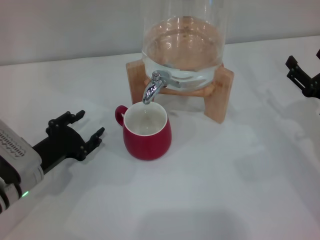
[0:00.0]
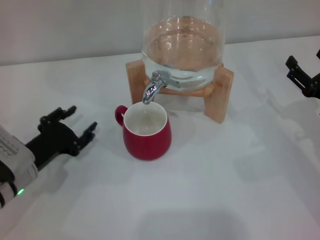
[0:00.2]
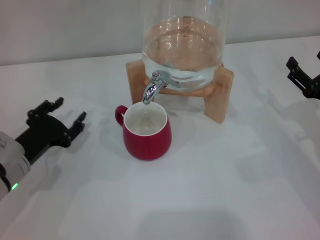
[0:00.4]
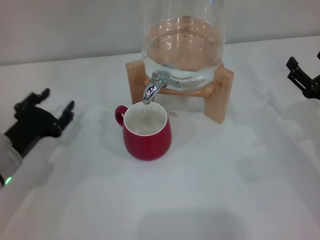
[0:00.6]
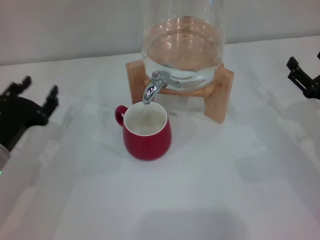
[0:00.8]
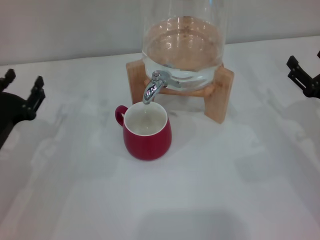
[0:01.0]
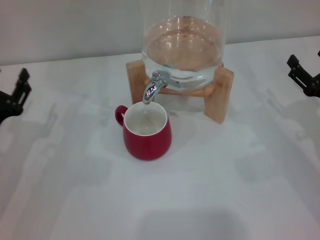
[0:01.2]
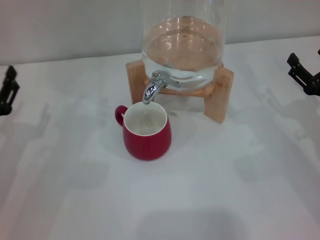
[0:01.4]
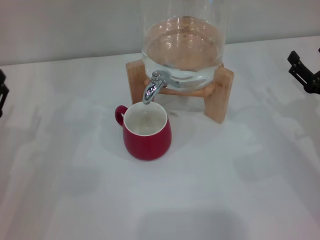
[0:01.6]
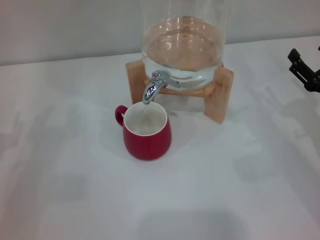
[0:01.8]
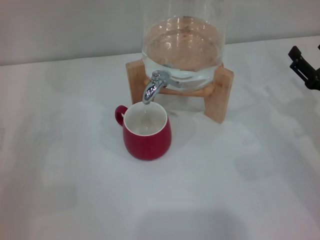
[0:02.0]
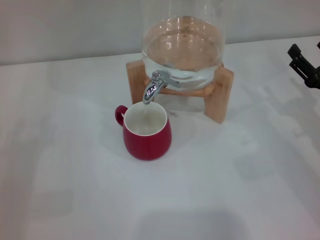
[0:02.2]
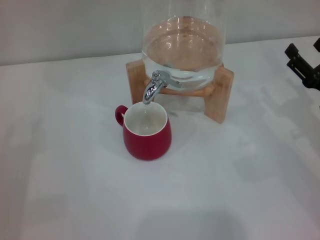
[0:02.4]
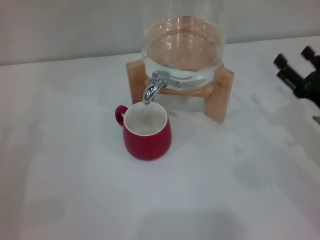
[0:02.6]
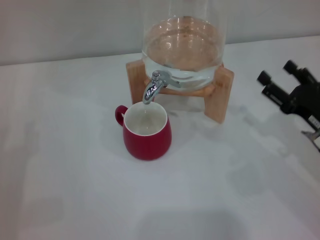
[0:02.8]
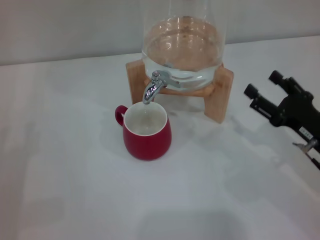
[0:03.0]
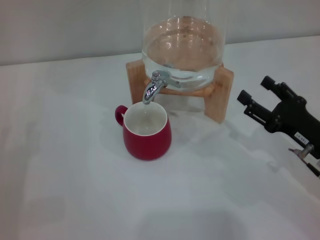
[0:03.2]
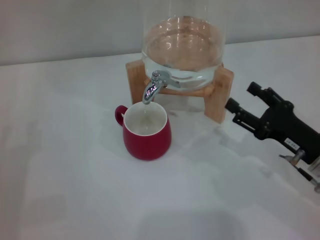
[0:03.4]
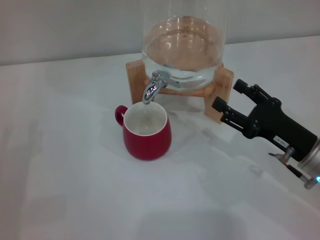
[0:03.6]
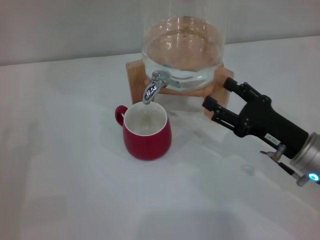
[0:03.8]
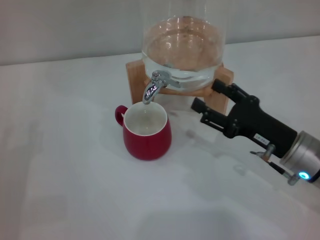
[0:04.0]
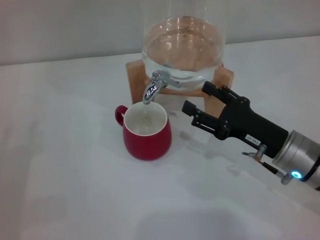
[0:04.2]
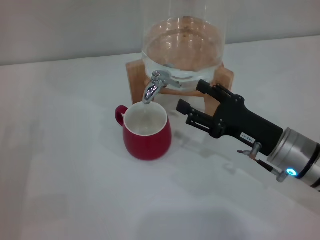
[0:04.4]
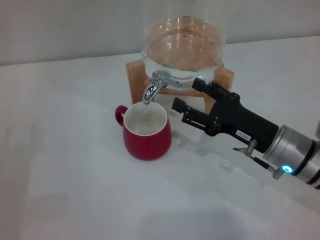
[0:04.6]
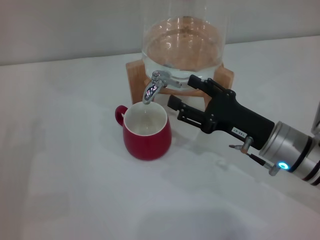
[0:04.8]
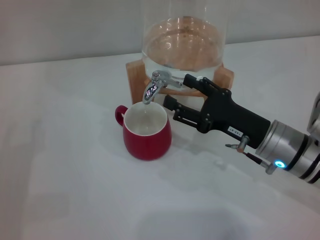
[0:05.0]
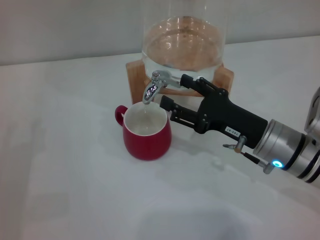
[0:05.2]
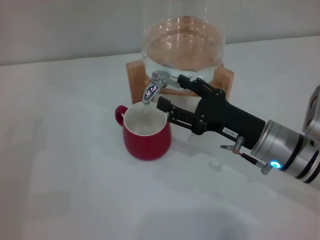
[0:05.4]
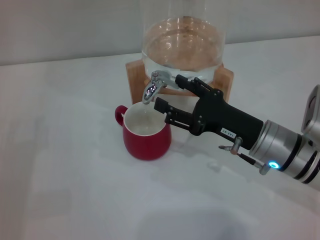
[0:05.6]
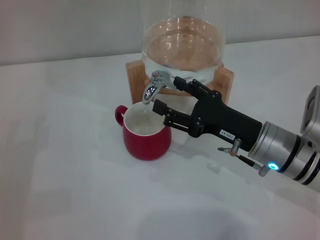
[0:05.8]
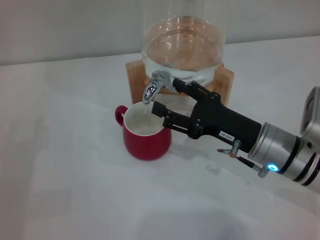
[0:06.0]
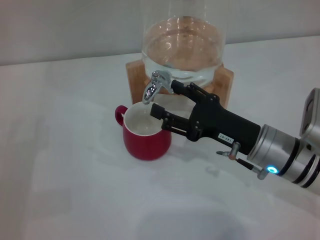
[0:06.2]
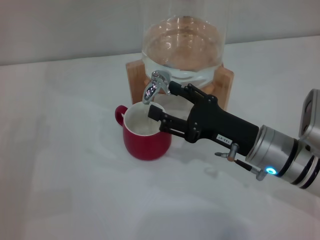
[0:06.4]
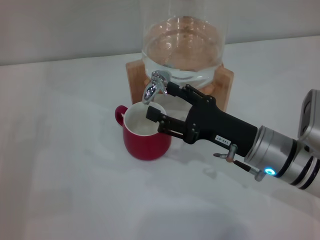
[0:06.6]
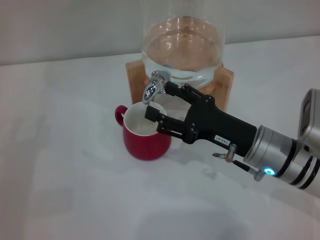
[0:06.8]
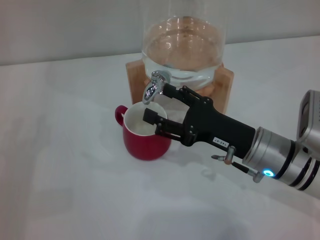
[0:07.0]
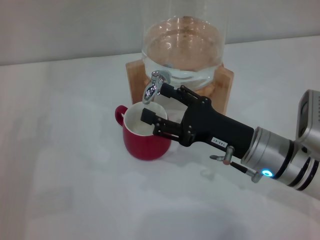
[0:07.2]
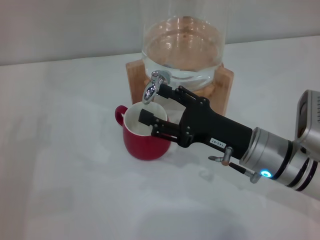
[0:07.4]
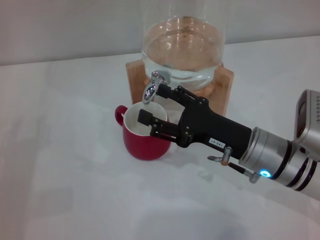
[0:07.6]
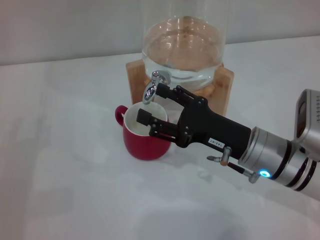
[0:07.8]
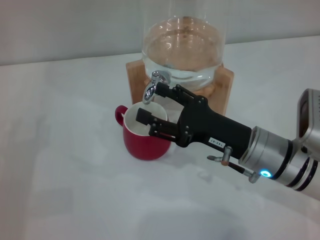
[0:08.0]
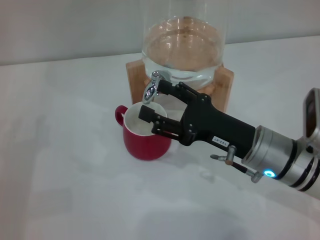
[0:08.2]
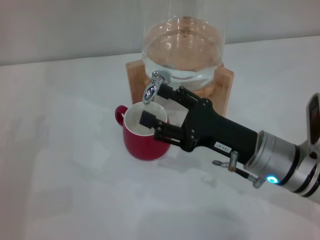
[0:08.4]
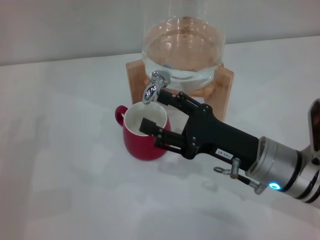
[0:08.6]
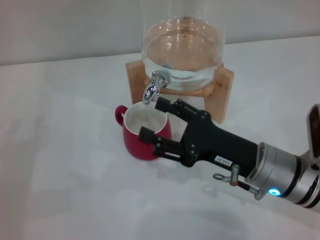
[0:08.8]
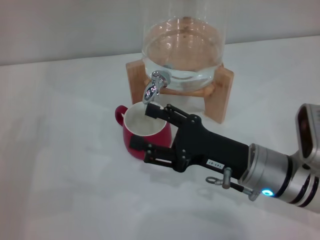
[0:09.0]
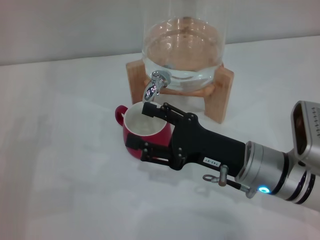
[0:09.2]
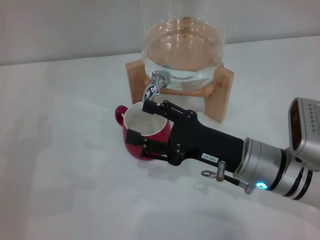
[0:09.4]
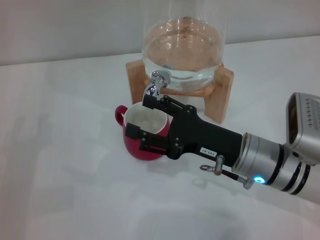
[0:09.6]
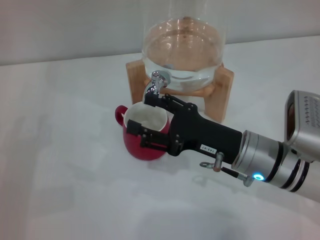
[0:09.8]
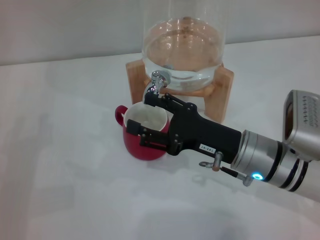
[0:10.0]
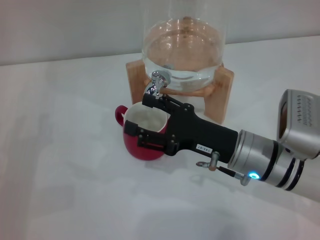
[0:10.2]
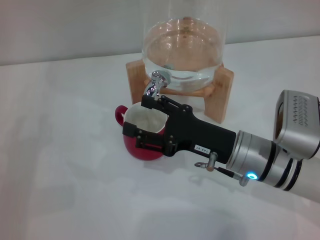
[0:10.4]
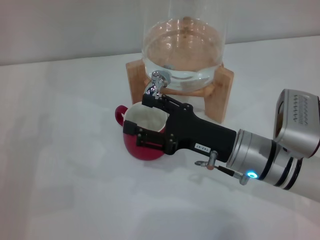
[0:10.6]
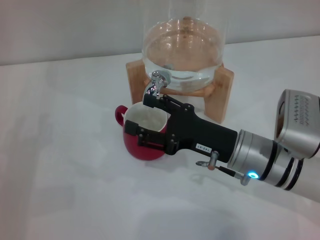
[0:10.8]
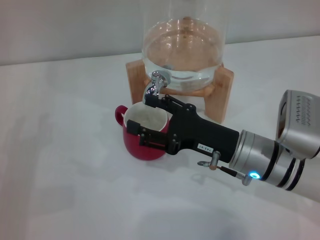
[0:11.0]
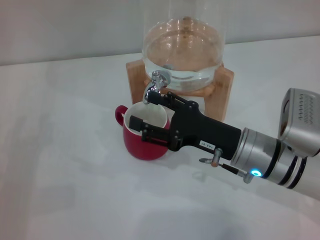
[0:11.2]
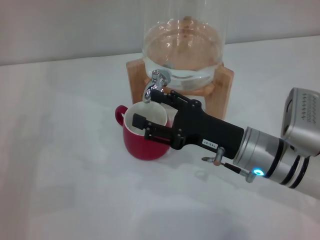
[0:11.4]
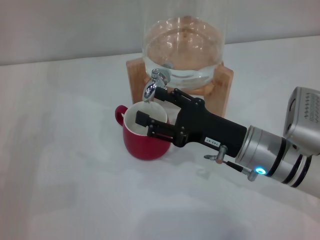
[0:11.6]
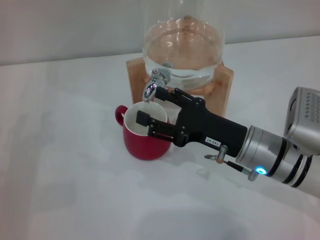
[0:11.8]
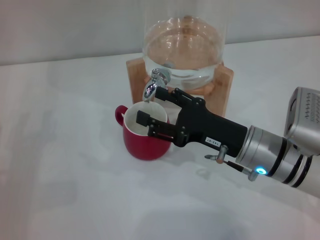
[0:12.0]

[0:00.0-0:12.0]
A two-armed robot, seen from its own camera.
Task of the whole recording: the left gripper pick up the red cup and place it horizontally under the faucet, the right gripper turn on the faucet to fill the cup, and then turn off the faucet.
Step, 0:00.0 to 0:09.0: Open the dispenser valve and fill the cup with water with the right gripper.
0:00.0 to 0:01.6: The left gripper heads to the left, covering roughly 5 cm.
0:03.0 to 0:04.4: The right gripper goes about 5 cm to the left.
0:04.4 to 0:12.0: The grippers make only small movements.

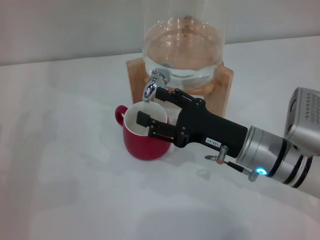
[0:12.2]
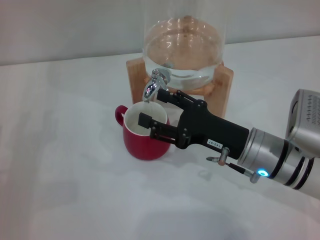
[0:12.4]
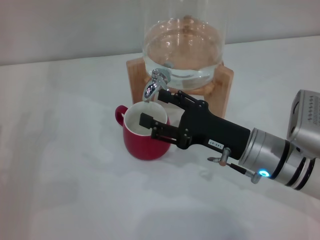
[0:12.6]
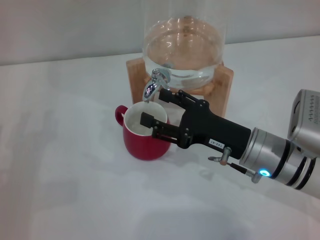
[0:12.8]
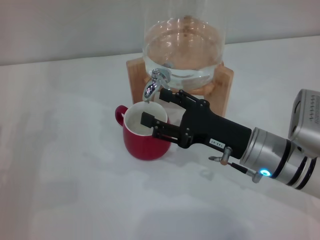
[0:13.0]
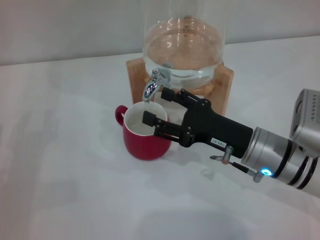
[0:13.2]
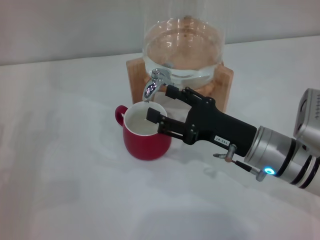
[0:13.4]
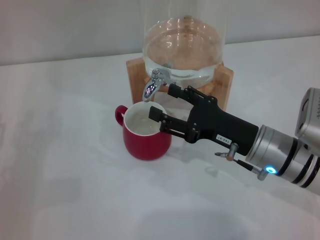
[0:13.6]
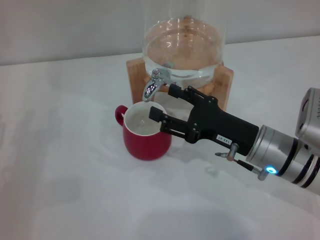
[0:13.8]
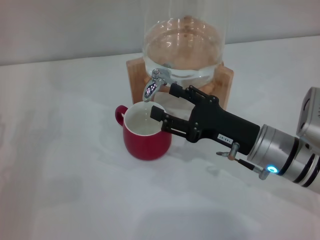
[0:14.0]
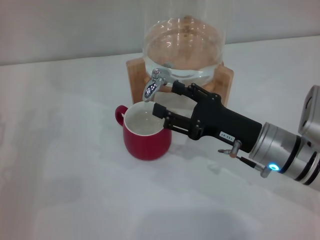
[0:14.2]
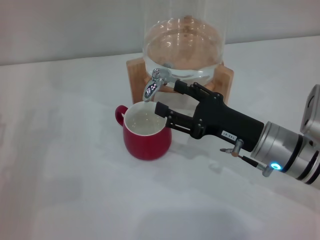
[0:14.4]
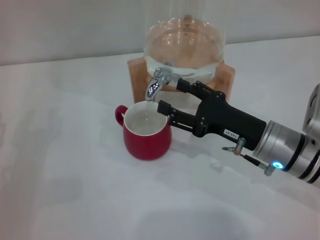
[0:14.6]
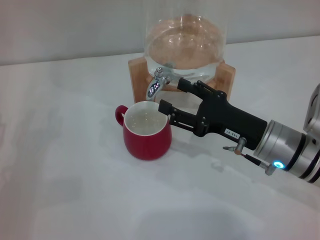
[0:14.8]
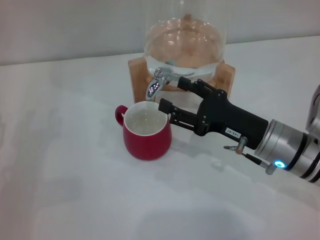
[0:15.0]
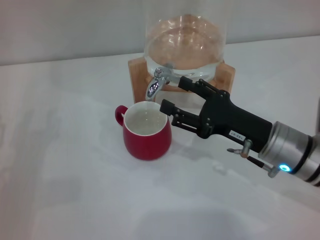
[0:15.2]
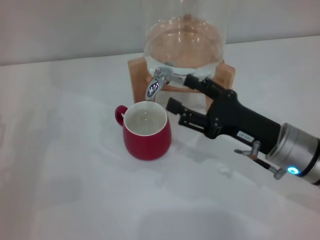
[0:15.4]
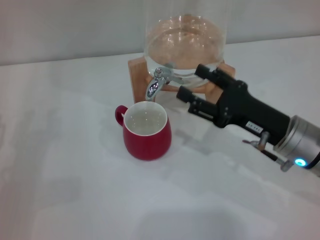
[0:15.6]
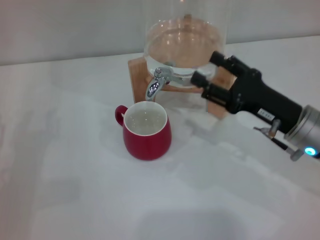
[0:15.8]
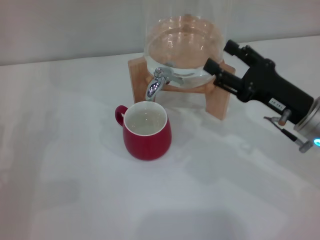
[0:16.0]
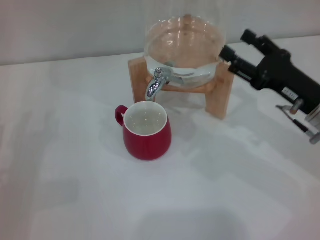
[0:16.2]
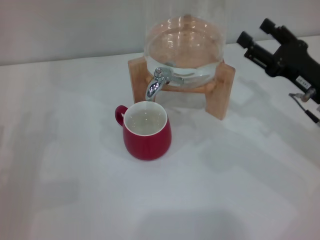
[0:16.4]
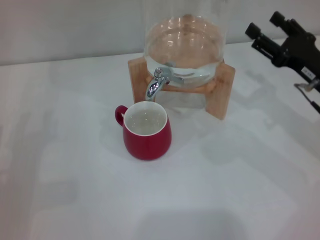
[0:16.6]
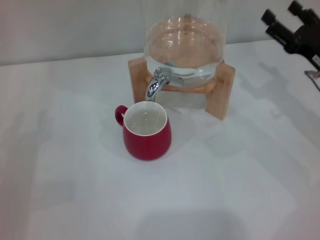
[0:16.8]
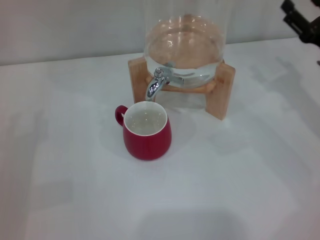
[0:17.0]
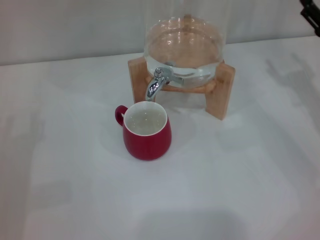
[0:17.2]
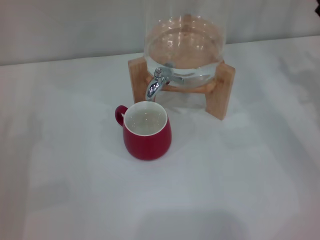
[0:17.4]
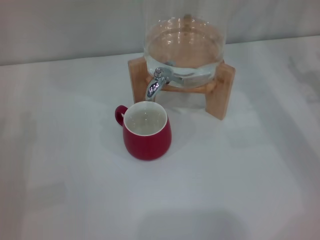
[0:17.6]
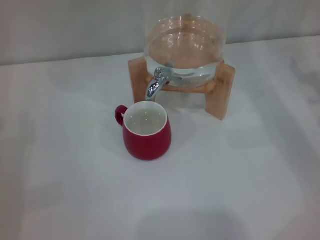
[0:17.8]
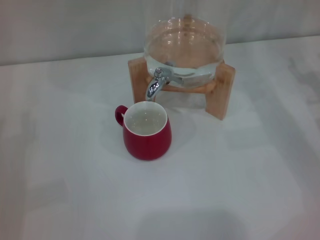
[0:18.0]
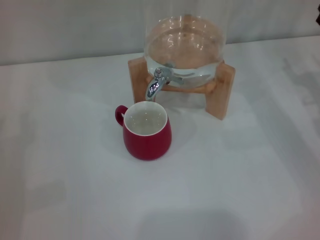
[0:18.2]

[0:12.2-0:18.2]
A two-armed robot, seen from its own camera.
Task of the whole recording: the left gripper pick up the red cup and place it horizontally under the faucet, the right gripper turn on the faucet to fill the cup, and then turn off the faucet.
Step, 0:12.2 to 0:15.4: Close the dispenser valve with the right gripper.
0:12.2 to 0:13.8: Both grippers stay about where they are.
0:13.8 to 0:15.2: The grippers make only small movements.
0:15.2 to 0:16.6: The right gripper moves to the right, roughly 10 cm.
0:16.6 to 0:18.2: The right gripper shifts some 5 cm to the right.
